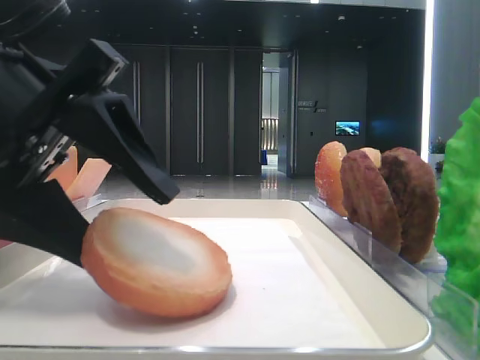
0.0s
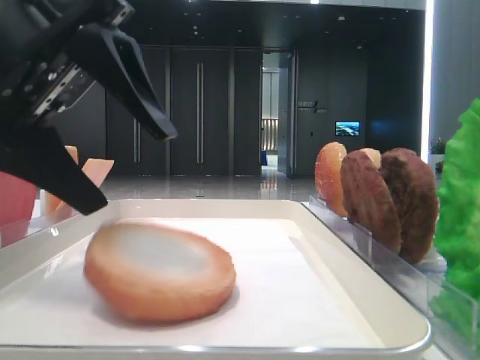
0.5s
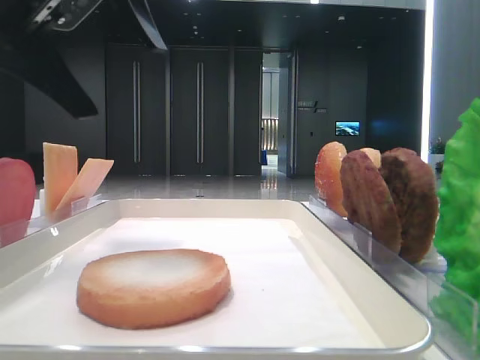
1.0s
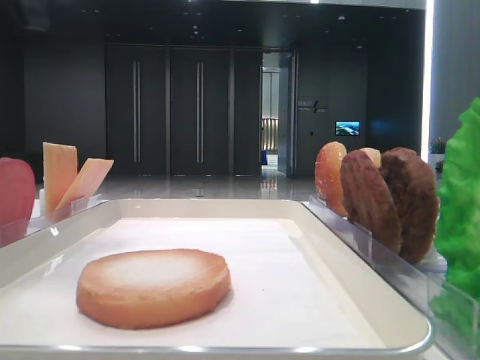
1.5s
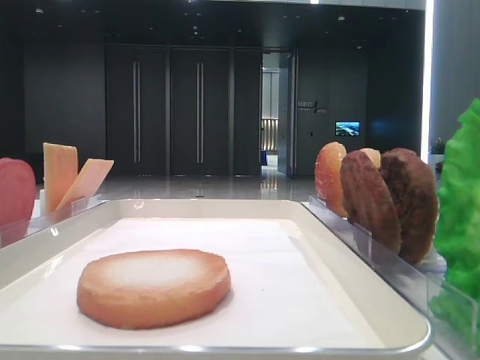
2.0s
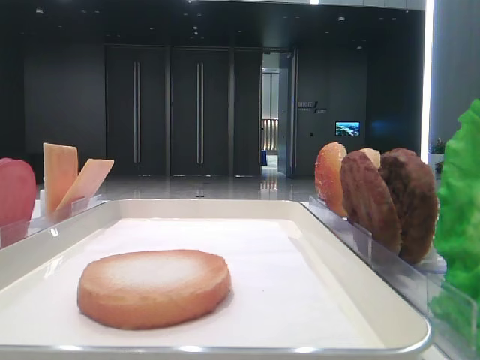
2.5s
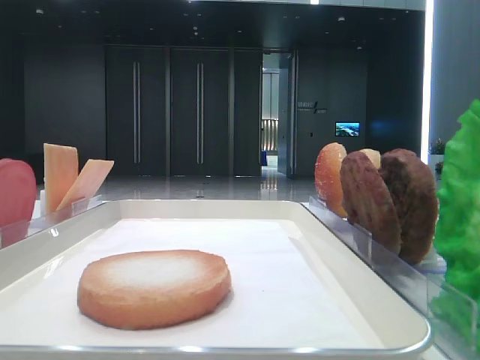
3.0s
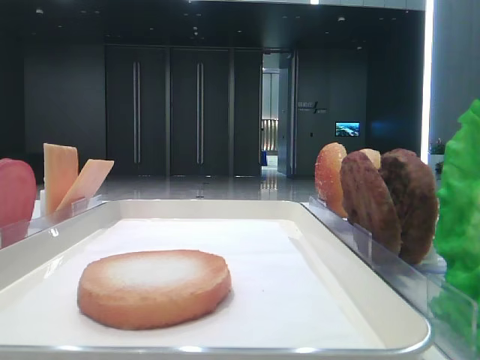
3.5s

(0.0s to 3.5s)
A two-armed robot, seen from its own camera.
0.0s - 2.0s: The left gripper shifts about 25 cm upward and to the left.

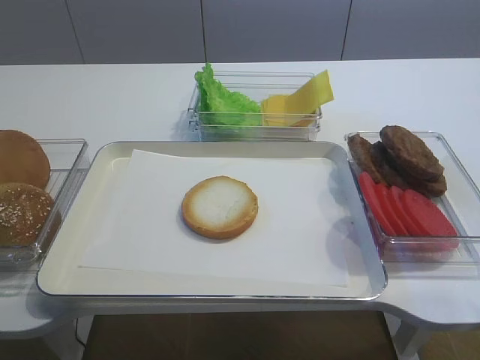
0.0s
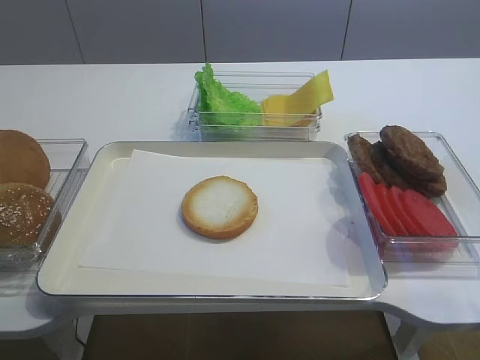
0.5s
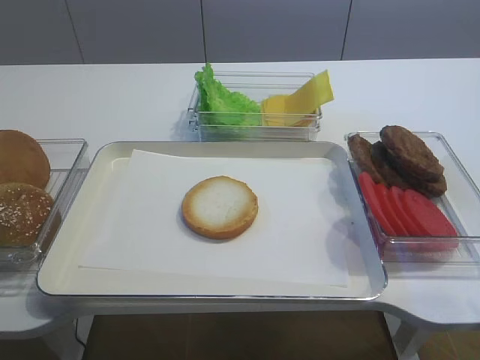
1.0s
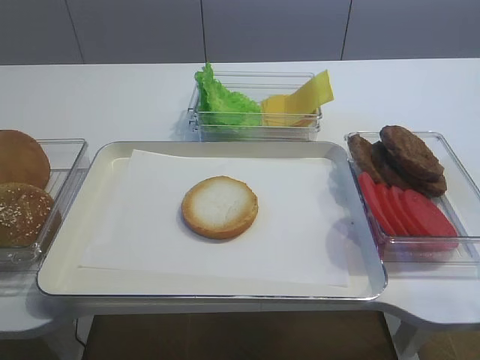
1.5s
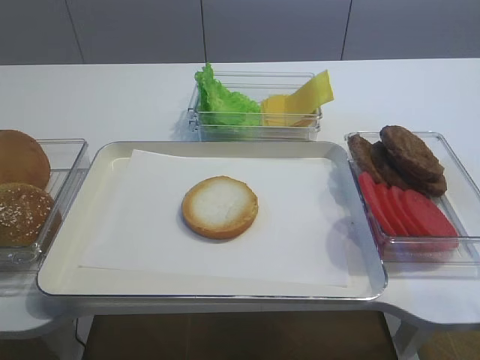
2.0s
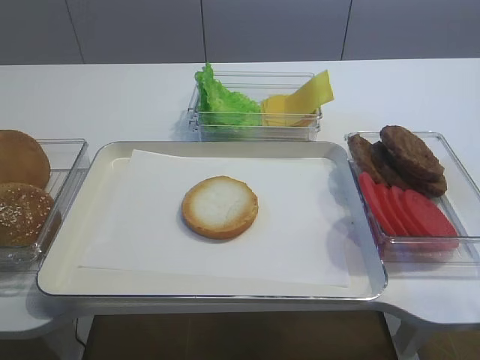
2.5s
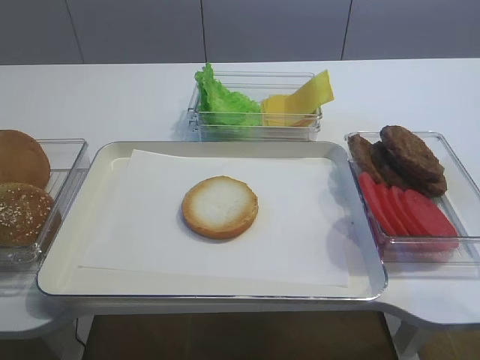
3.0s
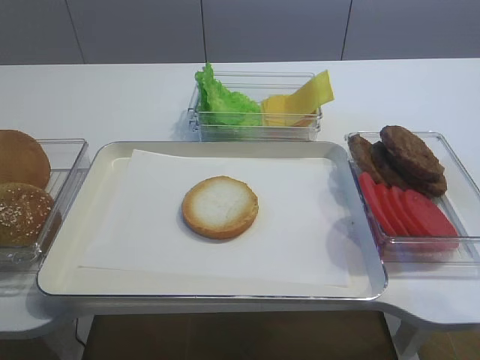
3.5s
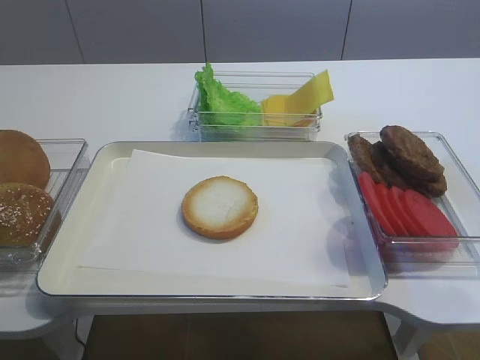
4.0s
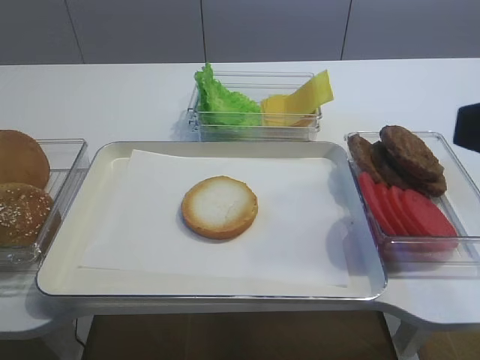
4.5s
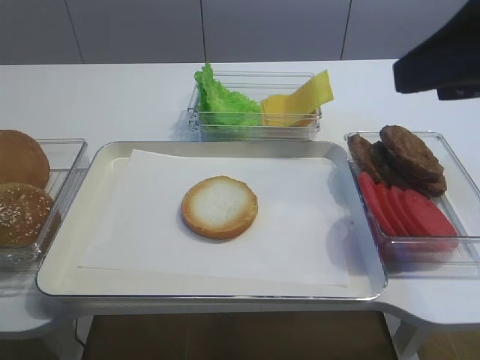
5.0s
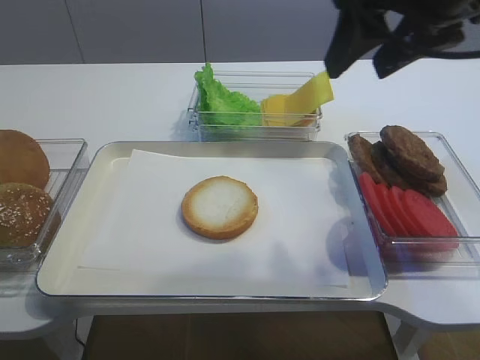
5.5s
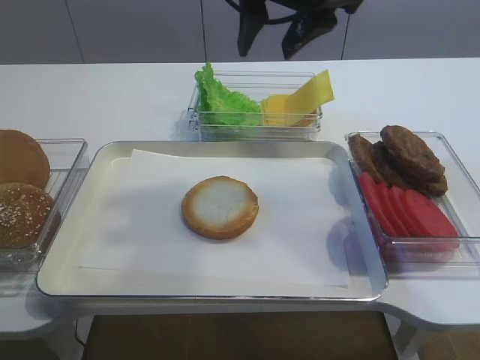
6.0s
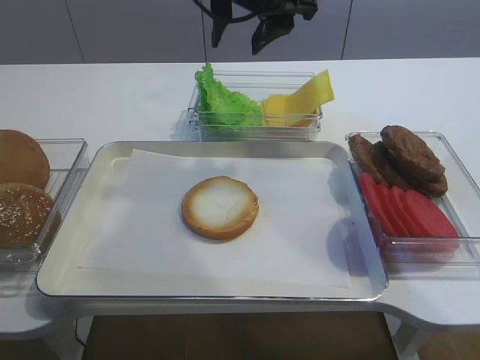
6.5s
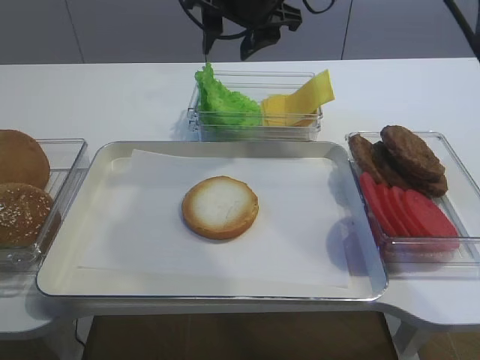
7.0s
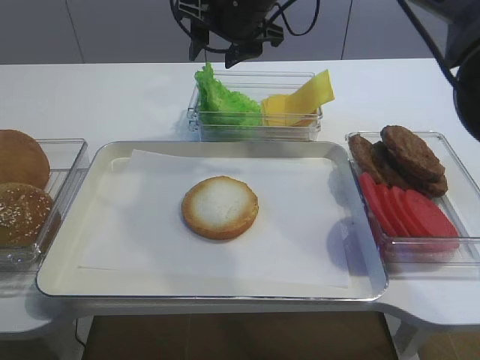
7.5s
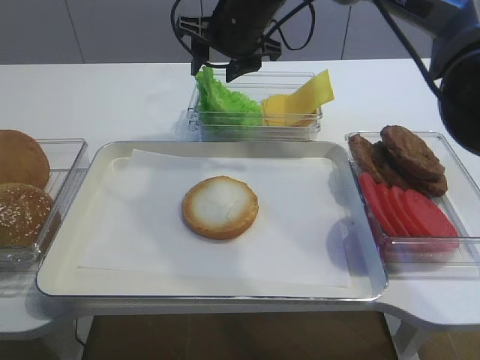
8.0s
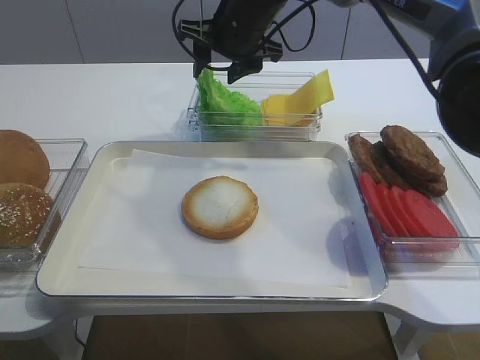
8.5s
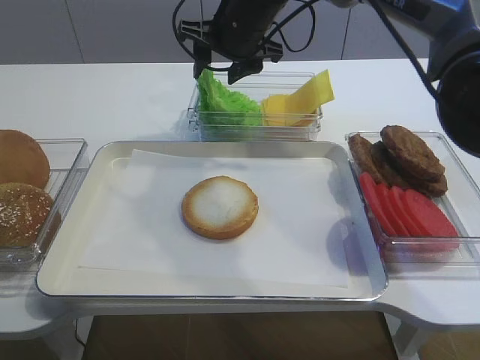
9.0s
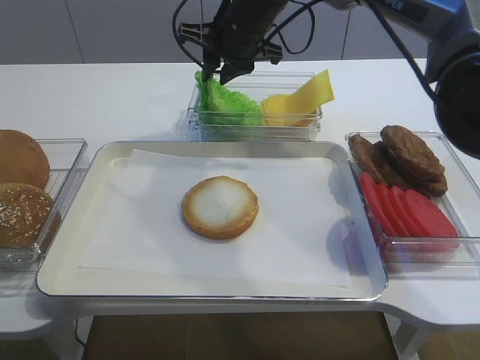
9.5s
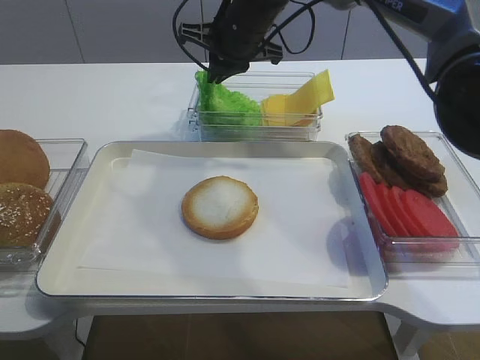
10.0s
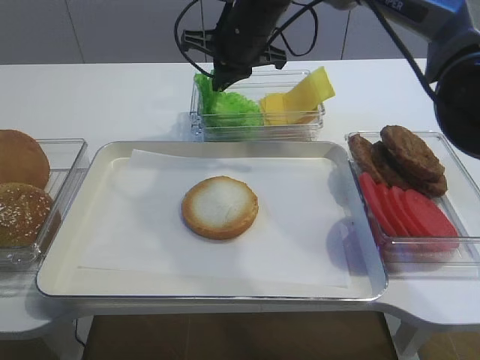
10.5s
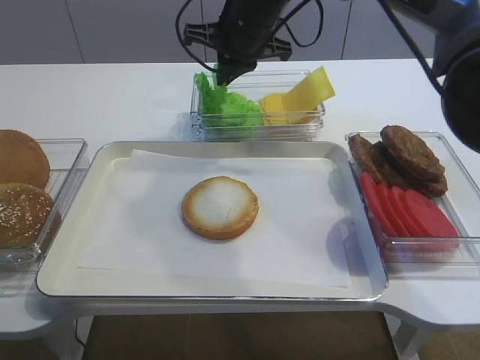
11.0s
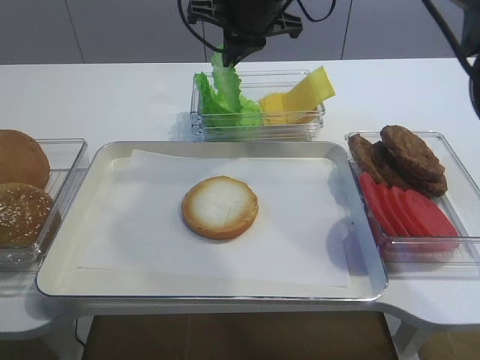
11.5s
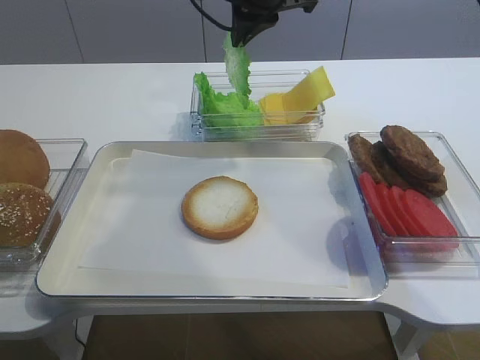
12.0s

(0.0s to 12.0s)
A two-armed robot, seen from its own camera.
Step, 0.0s - 11.0s: Pick up the lettuce leaf with the right gripper.
4.0s - 6.0s: The right gripper travels forward and to the left by roughly 35 cm.
6.0s - 8.0s: The right gripper is displaced forward, downward and to the left by about 15 cm.
8.0s - 10.0s: The right gripper closes up.
10.0s - 12.0s: The right gripper travels upward by approximately 5 cm.

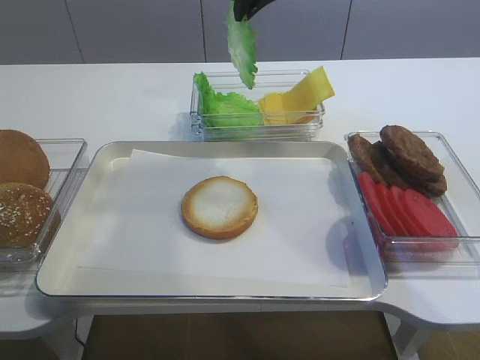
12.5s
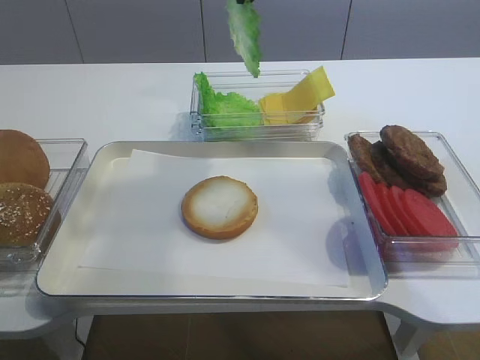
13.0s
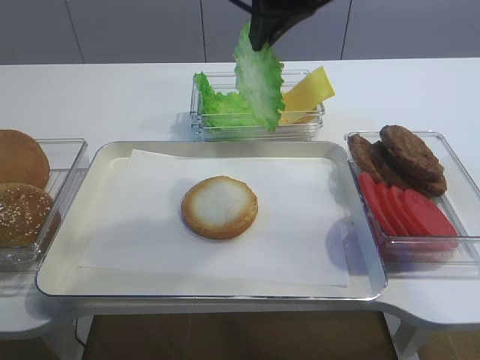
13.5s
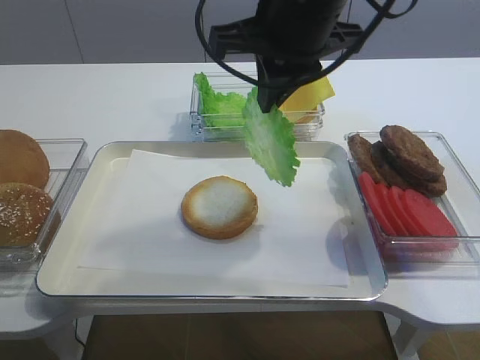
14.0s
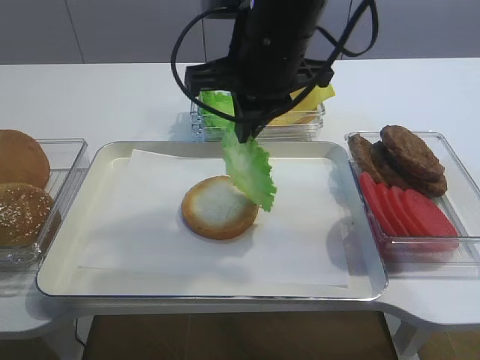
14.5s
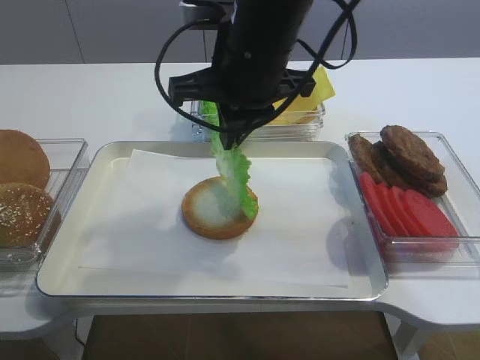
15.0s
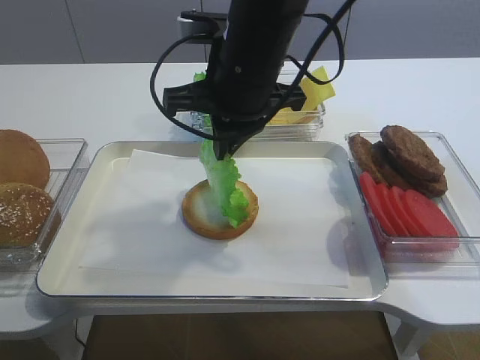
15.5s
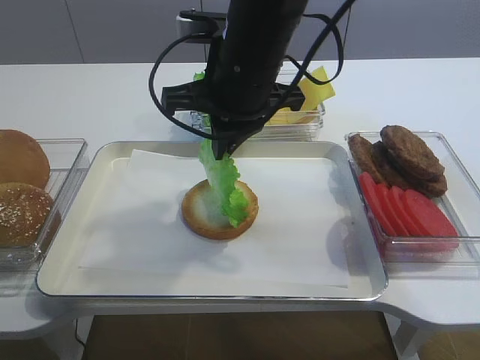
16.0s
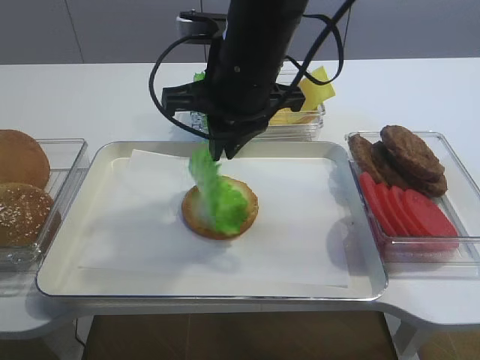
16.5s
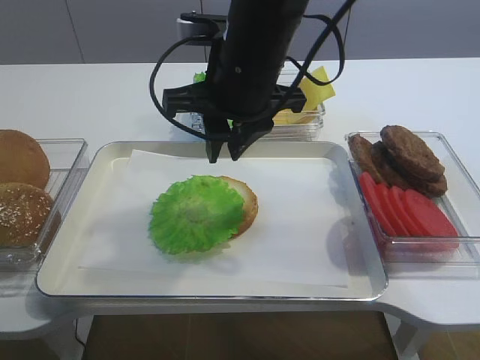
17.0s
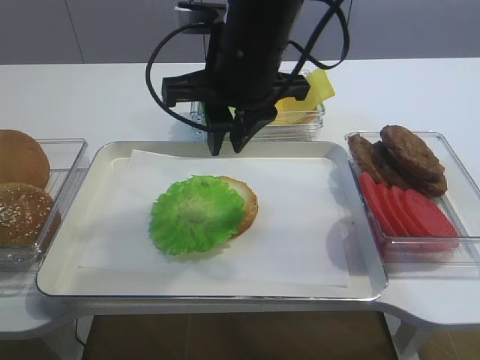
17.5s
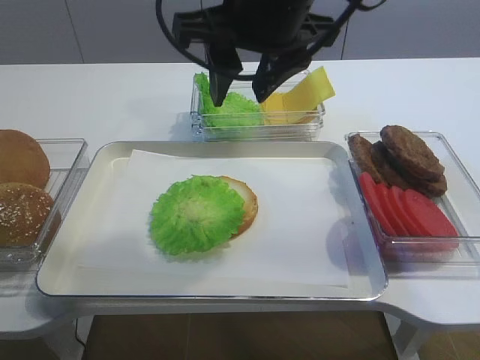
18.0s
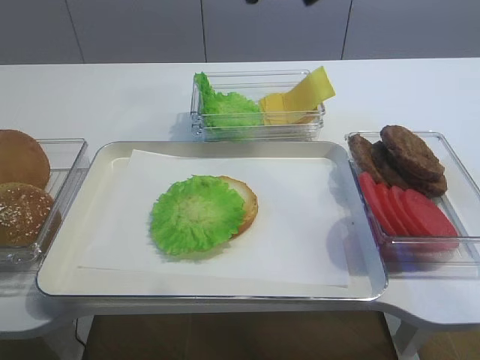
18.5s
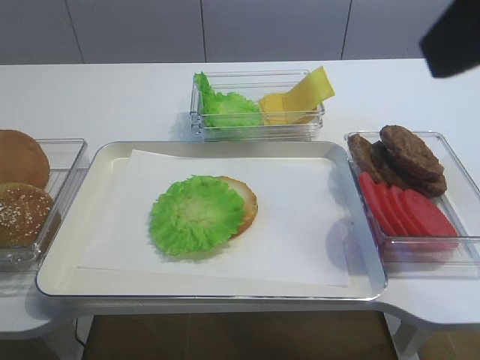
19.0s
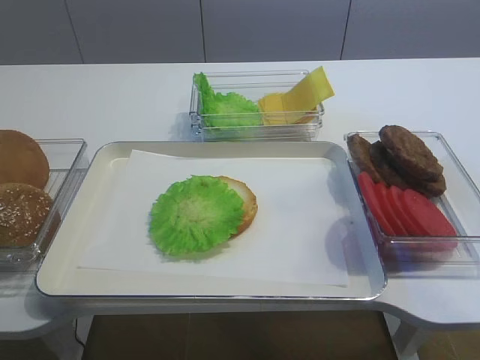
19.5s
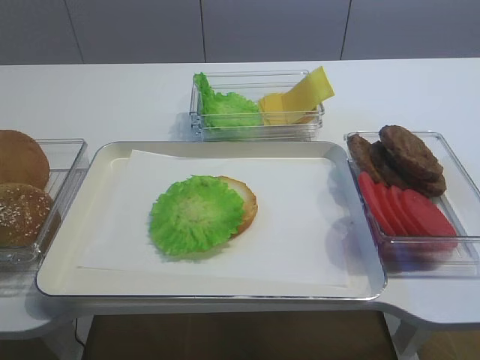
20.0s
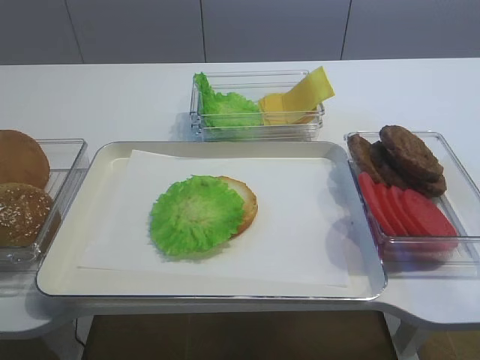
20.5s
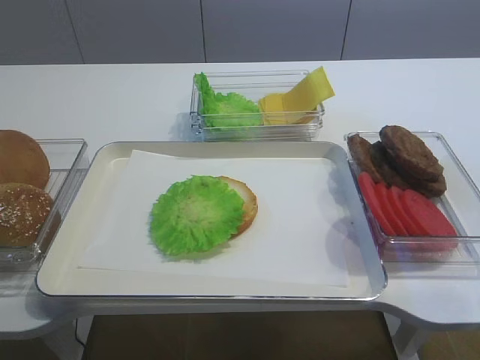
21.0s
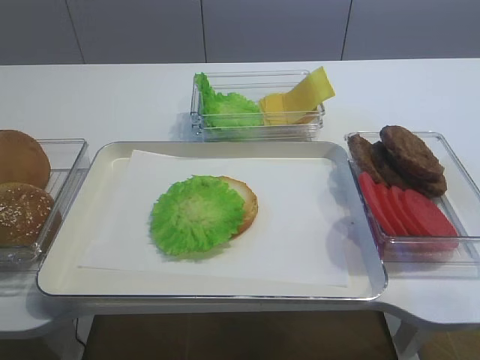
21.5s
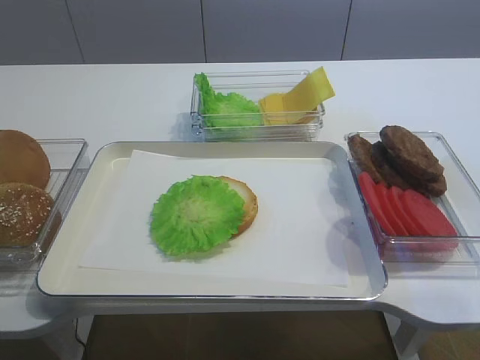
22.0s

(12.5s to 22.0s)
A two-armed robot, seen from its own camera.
Step, 12.5s - 17.5s: Place the lettuce leaf on the bread slice with the right gripper.
12.5s - 14.5s: The right gripper goes approximately 10 cm backward and downward.
14.5s - 16.5s: The grippers move only a little.
16.5s - 18.0s: The right gripper travels upward by roughly 5 cm, and opens.
18.0s - 20.0s: The right gripper goes about 35 cm to the right and backward.
20.0s - 22.0s: The right gripper shifts approximately 5 cm downward.
